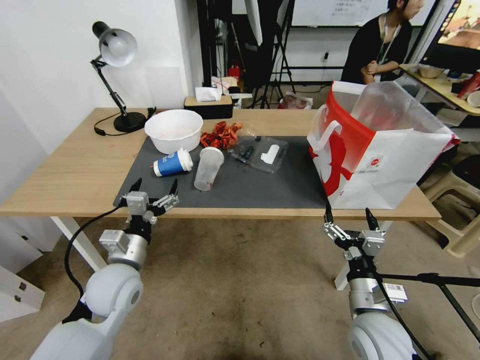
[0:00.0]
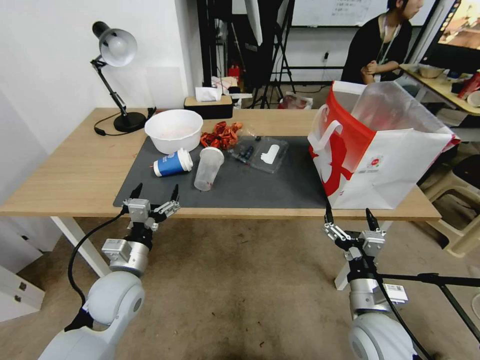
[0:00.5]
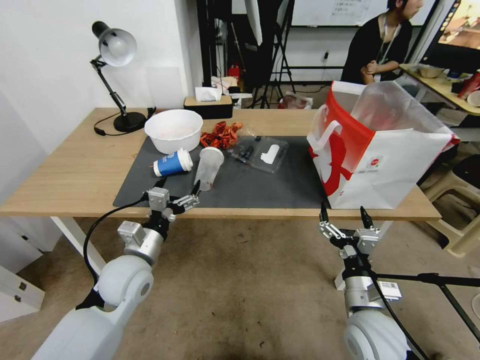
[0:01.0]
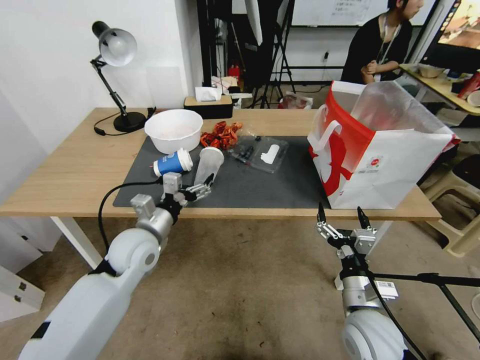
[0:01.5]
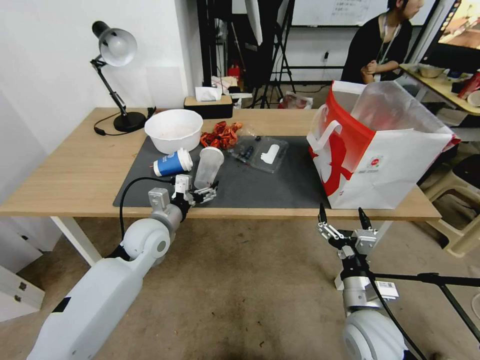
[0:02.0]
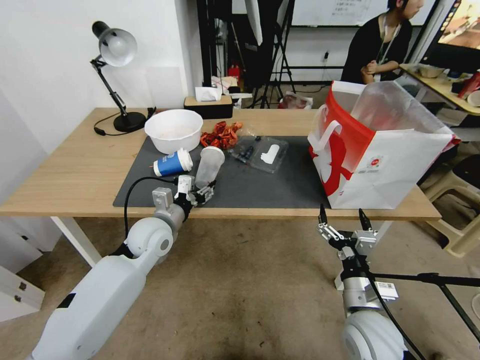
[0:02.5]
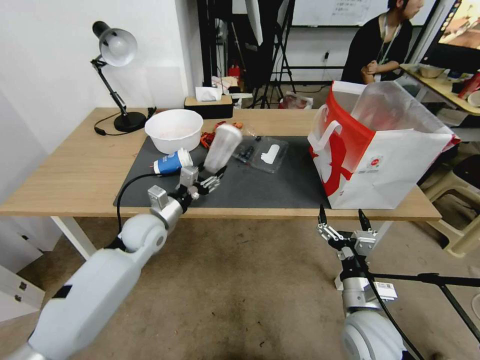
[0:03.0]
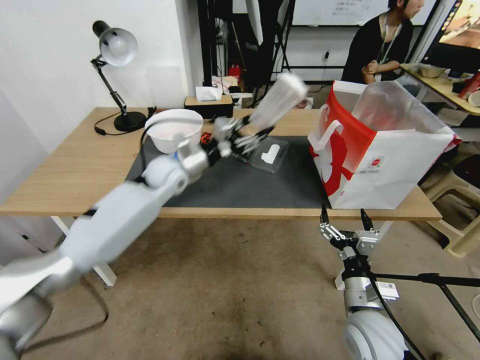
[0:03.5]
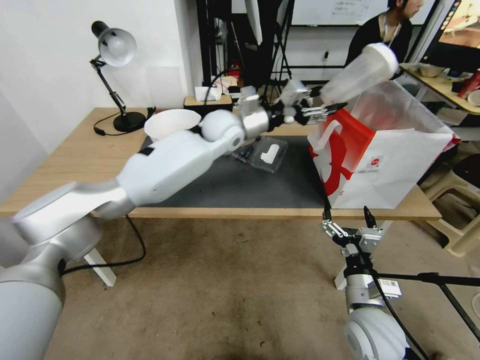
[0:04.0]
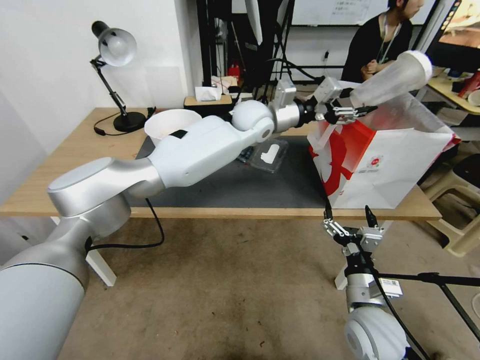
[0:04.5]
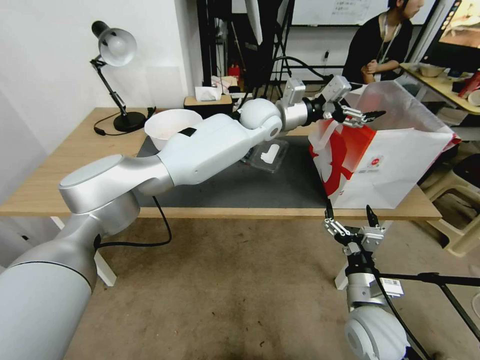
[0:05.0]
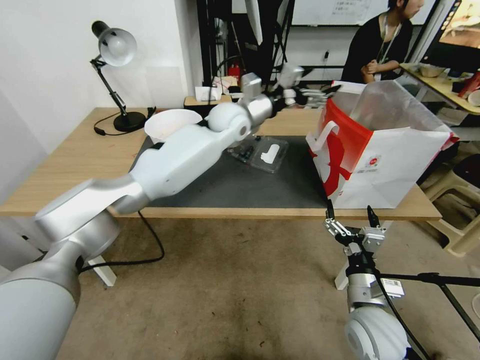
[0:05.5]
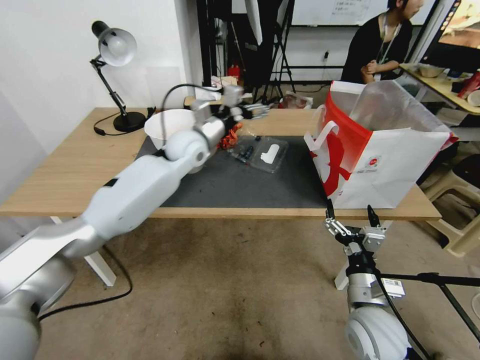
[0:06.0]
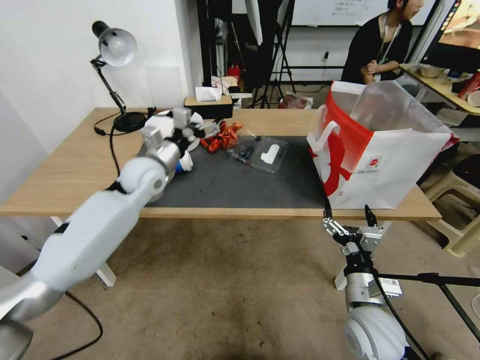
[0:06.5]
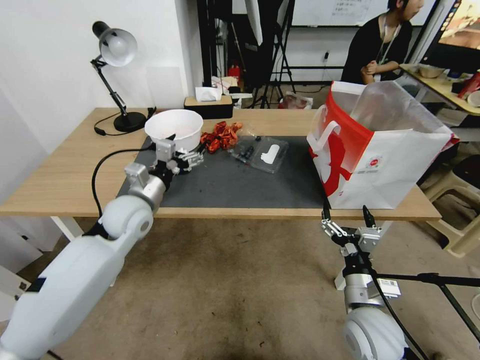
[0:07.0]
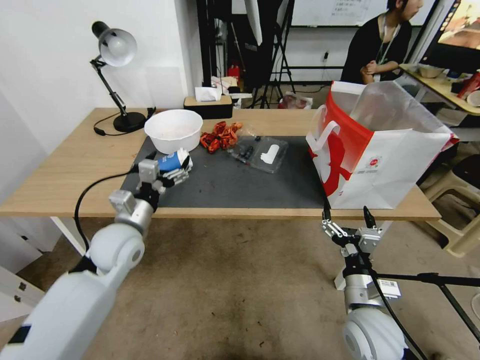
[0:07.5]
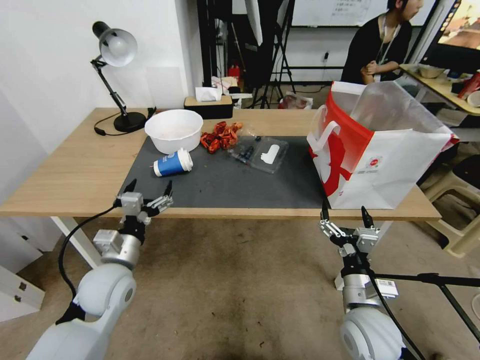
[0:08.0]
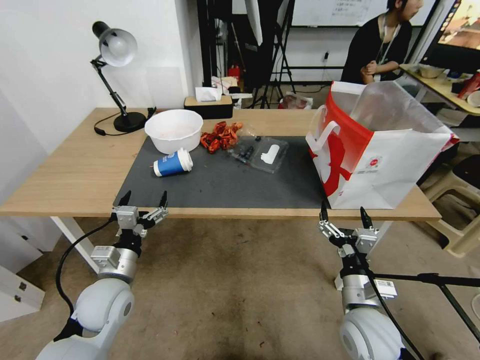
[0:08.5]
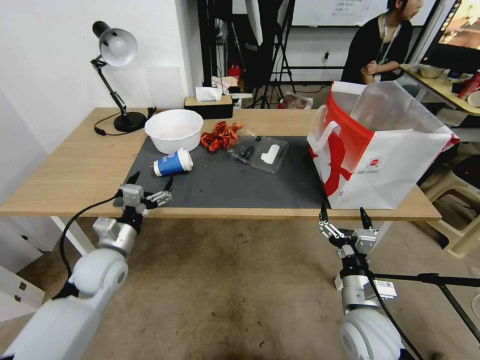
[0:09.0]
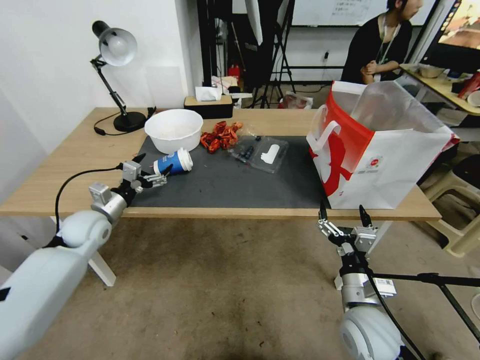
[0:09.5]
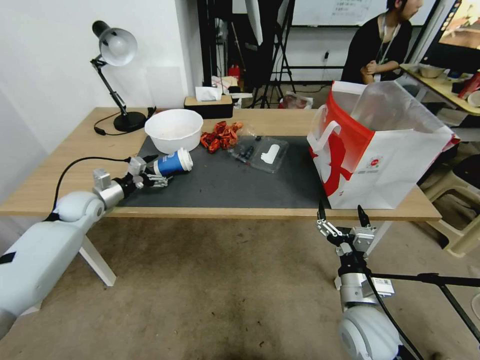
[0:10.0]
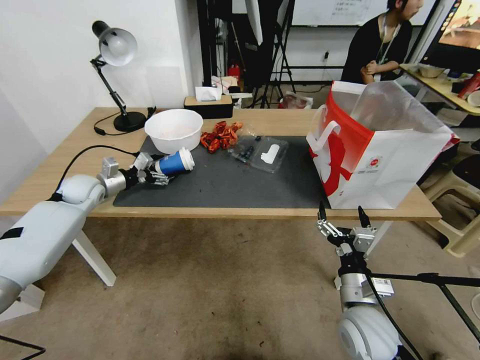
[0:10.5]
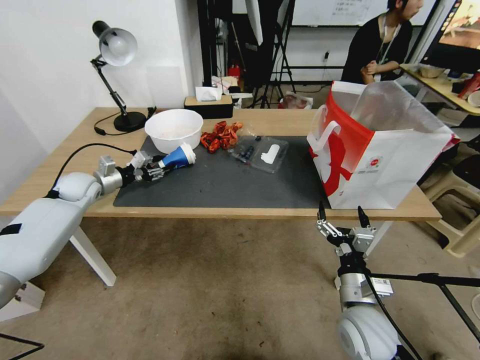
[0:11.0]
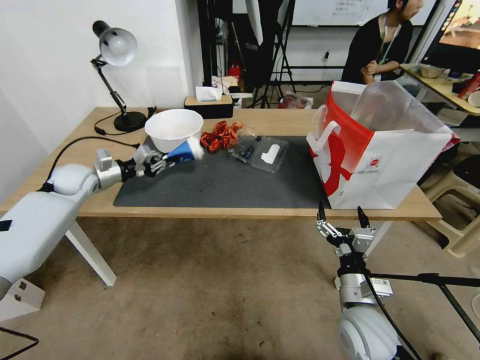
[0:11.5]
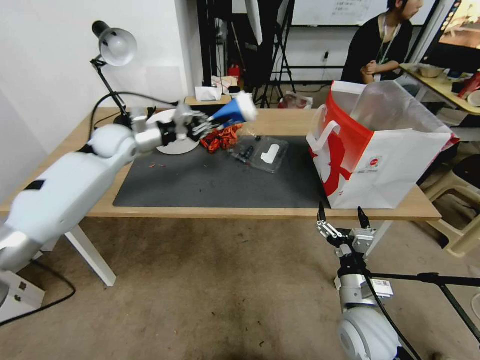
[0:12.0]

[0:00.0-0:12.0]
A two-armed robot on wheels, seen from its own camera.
0:00.0 to 0:02.0: The left gripper is displaced forward by approximately 10 cm.
0:02.0 to 0:04.0: The left gripper travels forward, upward and to the right by approximately 30 cm, and closes its fingers.
0:04.0 to 0:06.0: The left gripper heads to the left, covering roughly 10 cm, and opens its fingers.
0:06.0 to 0:08.0: The left gripper shifts about 35 cm backward, downward and to the left.
0:08.0 to 0:10.0: The left gripper travels forward and to the left by about 25 cm.
0:10.0 to 0:12.0: The left gripper moves upward, to the right and forward, roughly 20 cm, and closes.

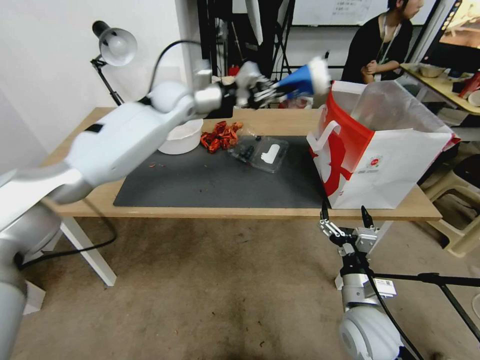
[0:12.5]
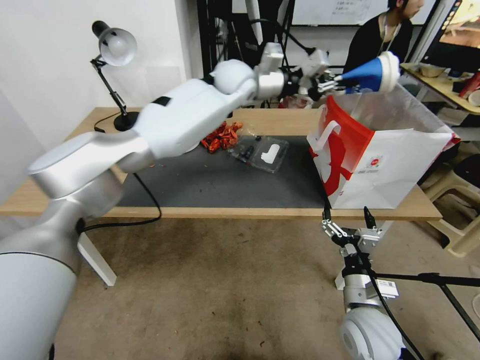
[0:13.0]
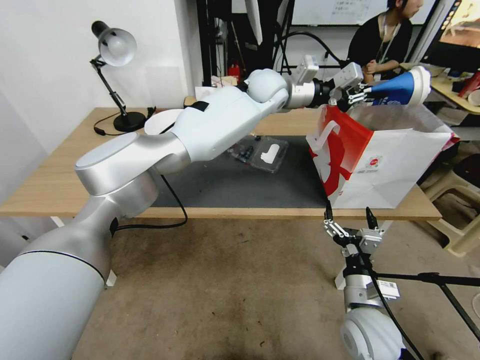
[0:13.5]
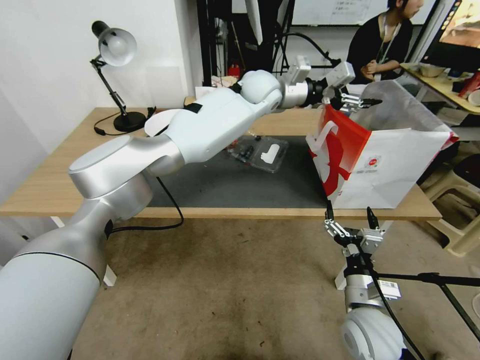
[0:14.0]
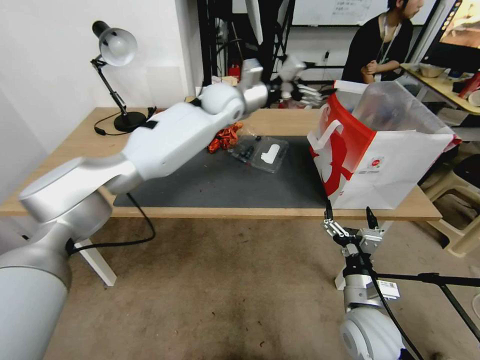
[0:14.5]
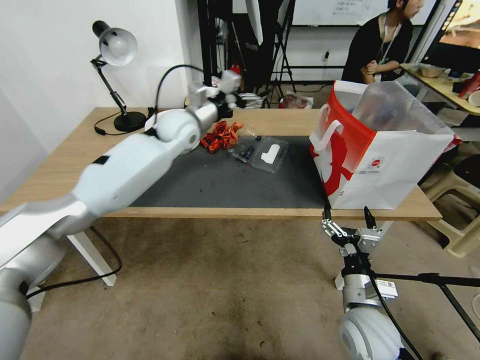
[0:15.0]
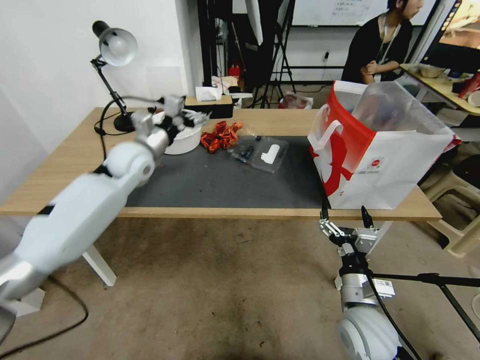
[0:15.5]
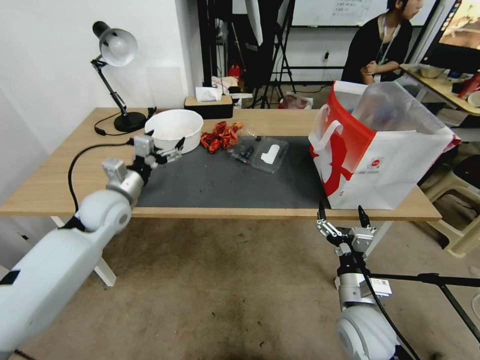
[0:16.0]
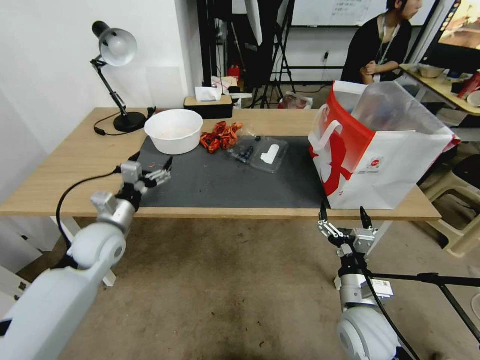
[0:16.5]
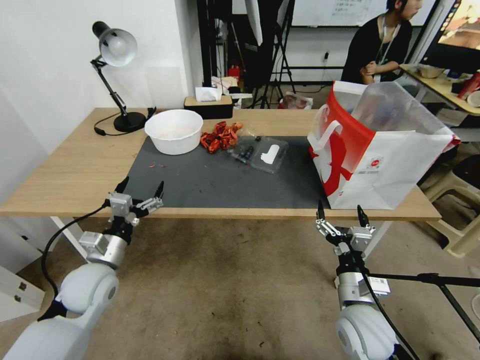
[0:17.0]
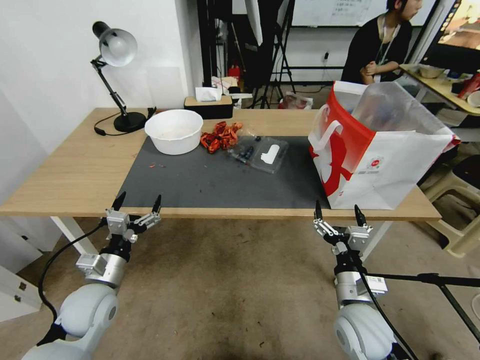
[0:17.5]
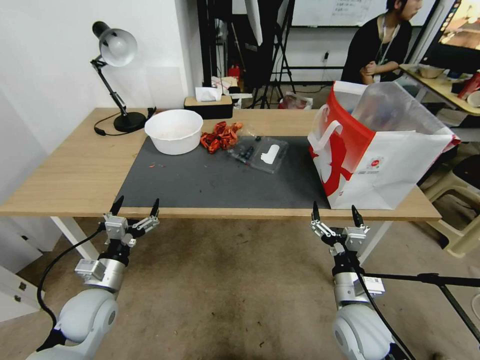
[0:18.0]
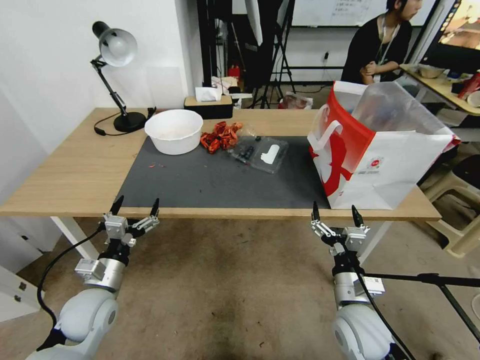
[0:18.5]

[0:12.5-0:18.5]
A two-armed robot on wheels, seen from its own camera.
0:12.5 to 0:14.5: The left gripper heads to the right, covering some 10 cm, and opens.
0:14.5 to 0:16.5: The left gripper heads to the left, backward and downward, covering some 40 cm.
0:16.5 to 0:18.5: The left gripper shifts about 15 cm backward and downward.
